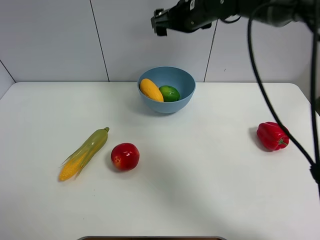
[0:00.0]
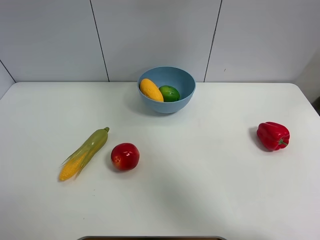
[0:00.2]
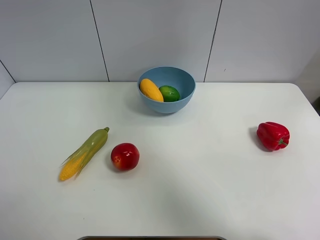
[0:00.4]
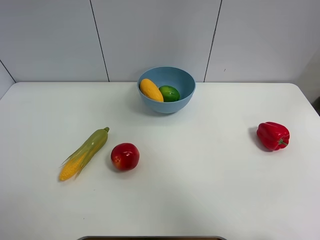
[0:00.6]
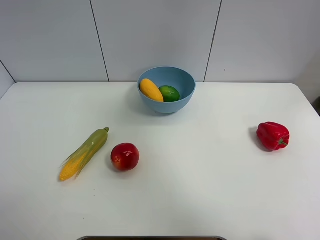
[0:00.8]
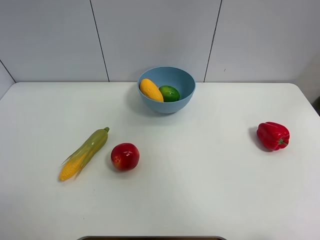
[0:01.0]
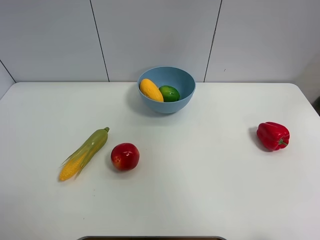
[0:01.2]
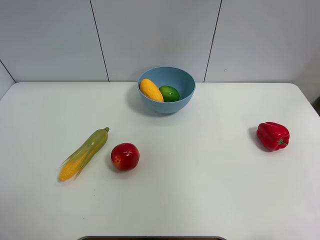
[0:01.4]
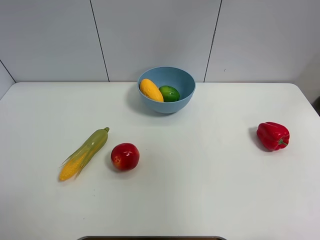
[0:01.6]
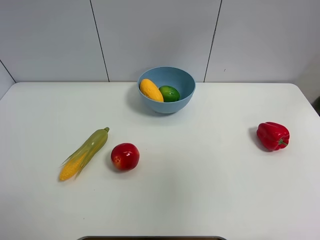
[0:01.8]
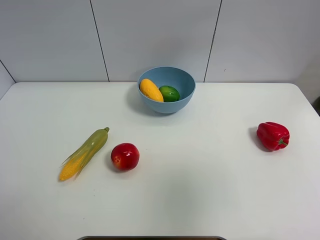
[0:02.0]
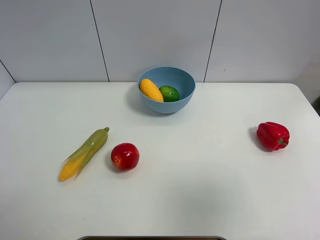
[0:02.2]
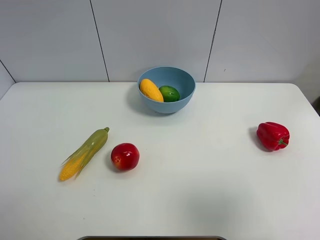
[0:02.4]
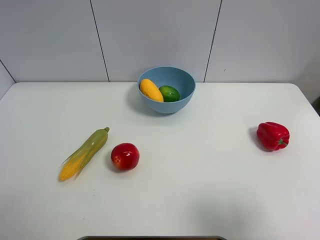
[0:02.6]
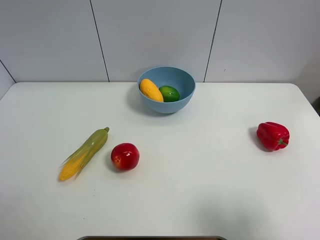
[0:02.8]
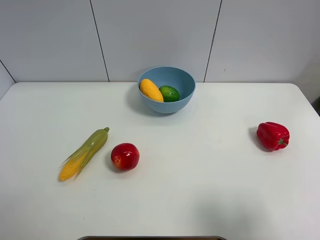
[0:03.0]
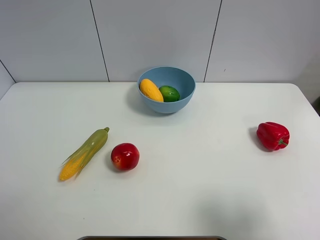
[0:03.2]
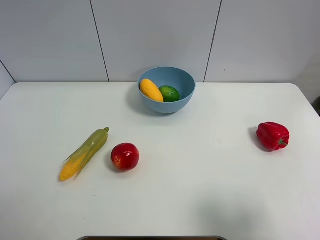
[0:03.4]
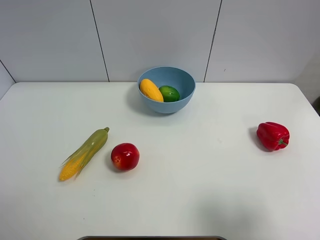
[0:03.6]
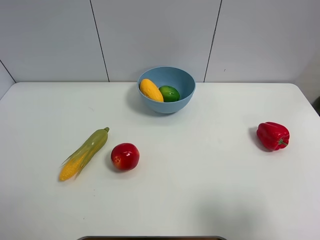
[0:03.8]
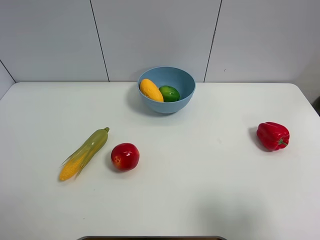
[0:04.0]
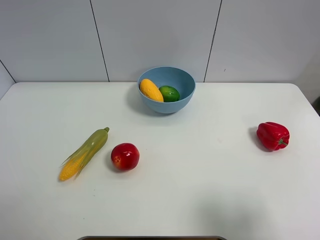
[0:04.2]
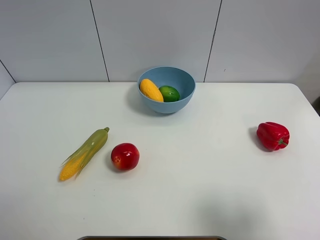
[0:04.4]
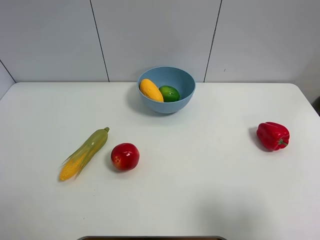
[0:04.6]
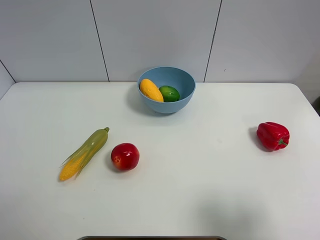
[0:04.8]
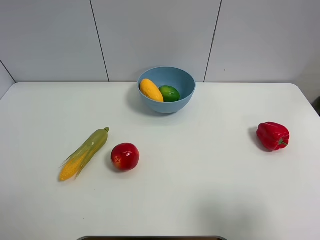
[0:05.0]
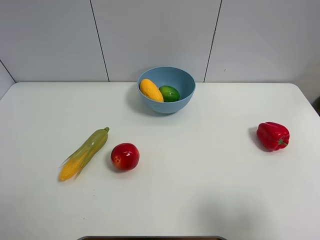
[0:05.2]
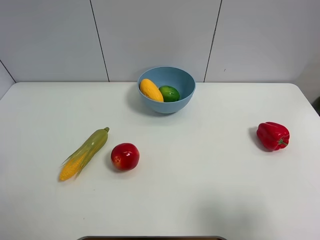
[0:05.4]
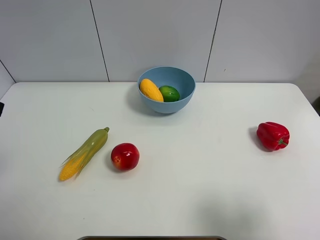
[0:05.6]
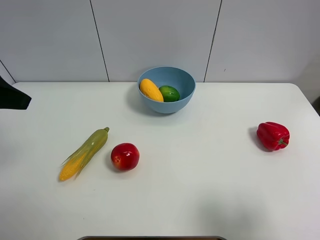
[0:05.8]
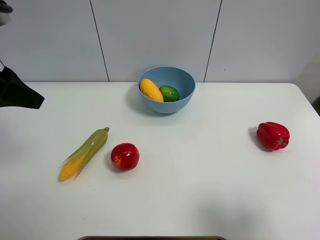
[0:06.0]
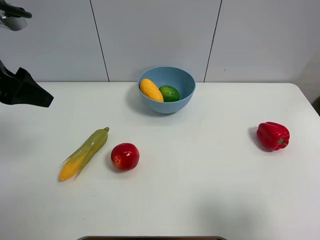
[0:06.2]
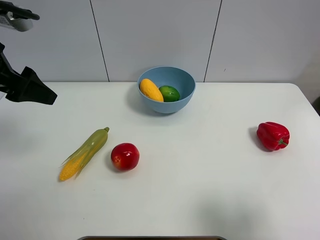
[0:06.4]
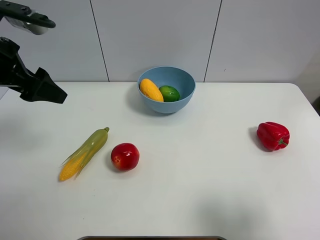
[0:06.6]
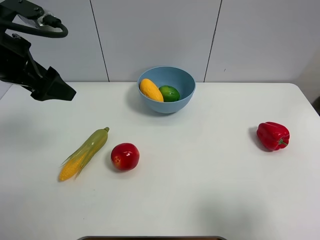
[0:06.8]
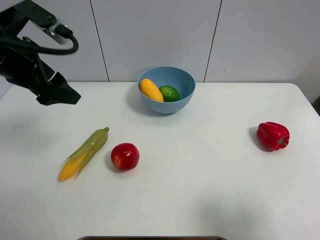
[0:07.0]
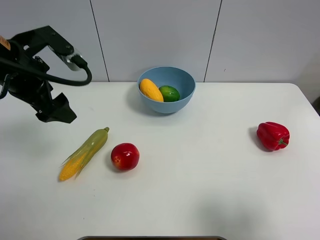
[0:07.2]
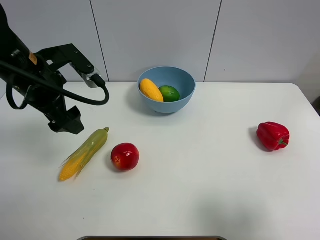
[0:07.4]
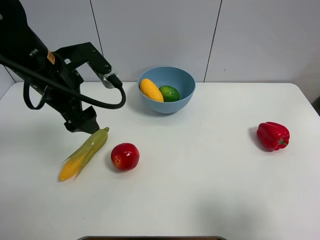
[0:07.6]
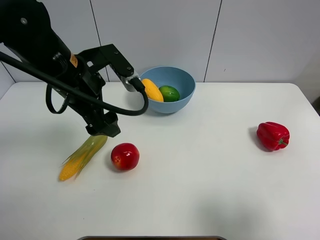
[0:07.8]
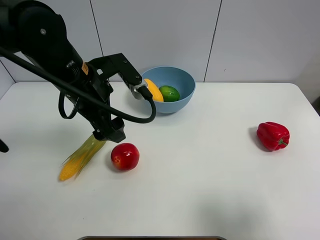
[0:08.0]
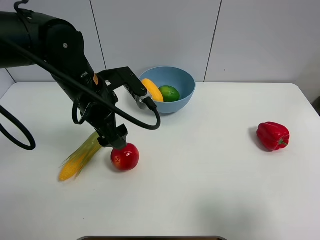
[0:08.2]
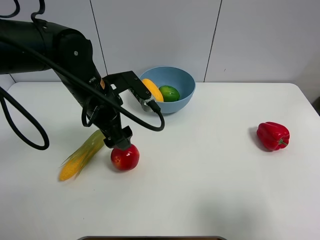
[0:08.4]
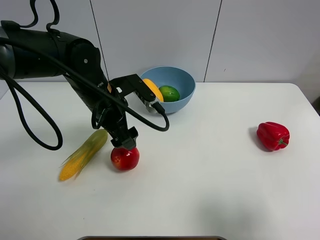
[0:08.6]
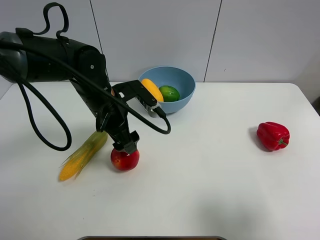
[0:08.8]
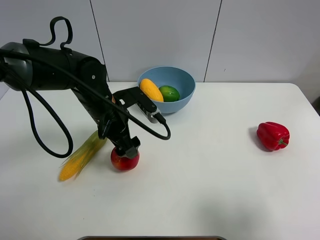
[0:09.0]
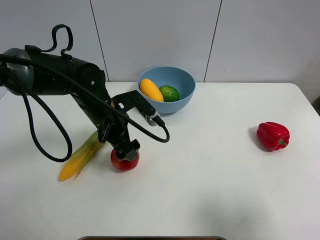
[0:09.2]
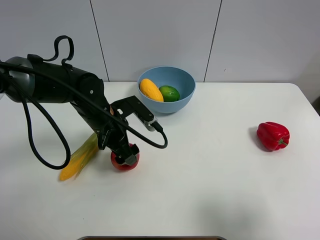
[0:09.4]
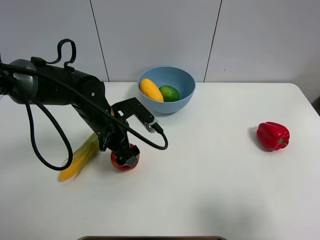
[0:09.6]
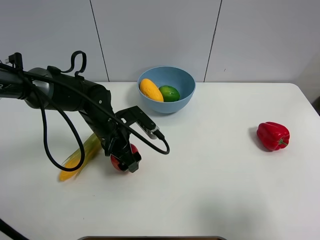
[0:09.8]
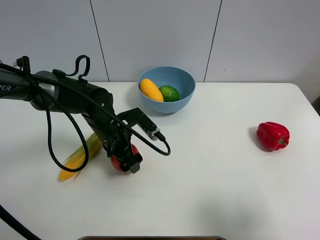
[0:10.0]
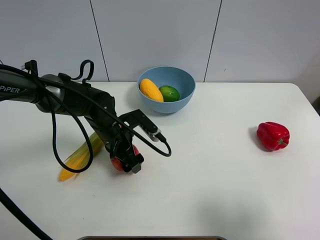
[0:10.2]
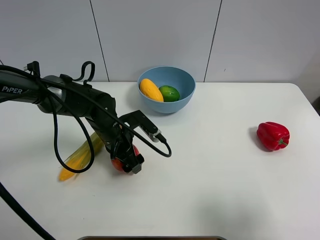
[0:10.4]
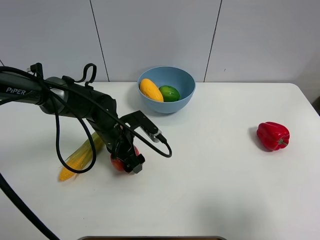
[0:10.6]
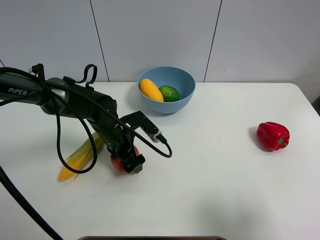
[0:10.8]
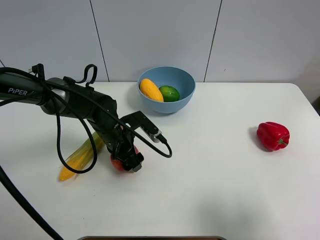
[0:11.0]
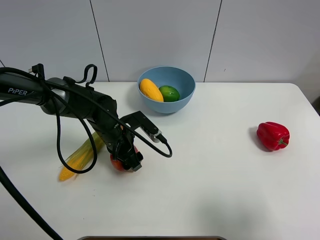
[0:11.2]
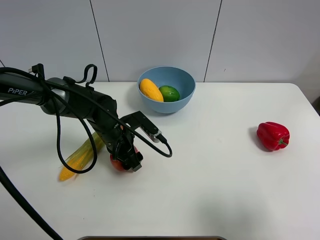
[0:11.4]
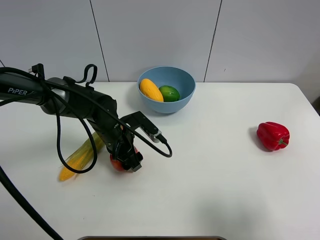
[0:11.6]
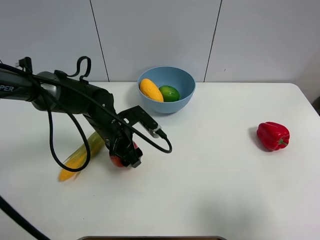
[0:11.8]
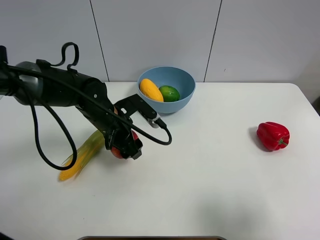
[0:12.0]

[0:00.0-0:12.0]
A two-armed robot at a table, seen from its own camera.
Task of the whole recording: Put the three fruits on the table into a bowl.
Step, 0:00.0 to 0:11.2: Grasp the pomegranate with left gripper.
0:00.0 to 0:01.6: The right gripper is displaced backward, upward and to the right by some 50 cm.
0:01.6 to 0:03.0: The right gripper shifts some 25 cm downward.
0:03.0 to 0:04.4: Both grippers stay about where they are.
0:04.4 to 0:06.0: The left gripper travels forward and upward by approximately 25 cm.
0:06.0 to 0:07.6: The left gripper moves to the right and downward, approximately 15 cm.
0:07.6 to 0:09.0: The left gripper heads downward and to the right, covering roughly 10 cm.
0:09.0 to 0:10.4: The left gripper travels downward by some 5 cm.
0:10.4 to 0:12.0: The left gripper heads upward, covering about 5 cm, and closes.

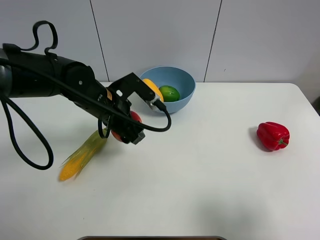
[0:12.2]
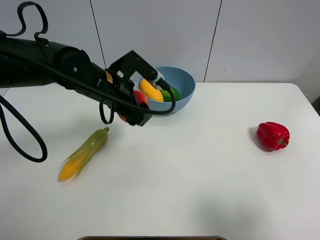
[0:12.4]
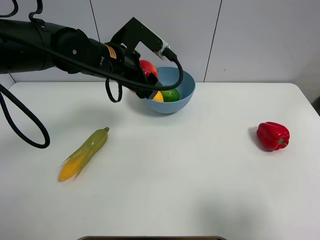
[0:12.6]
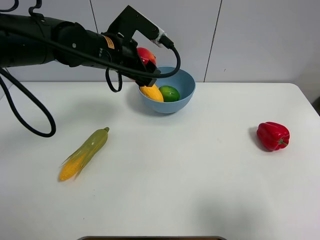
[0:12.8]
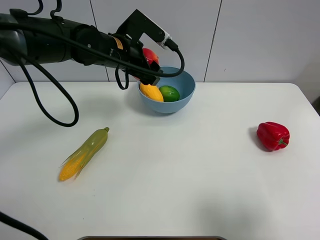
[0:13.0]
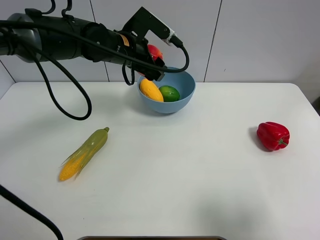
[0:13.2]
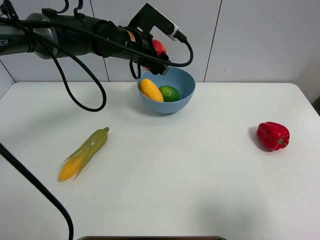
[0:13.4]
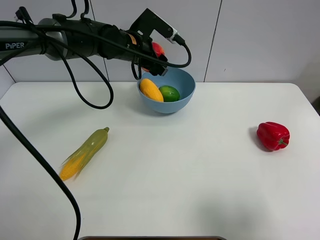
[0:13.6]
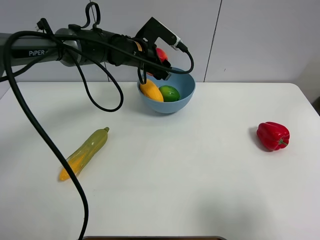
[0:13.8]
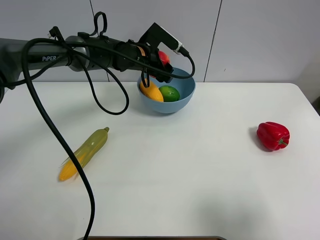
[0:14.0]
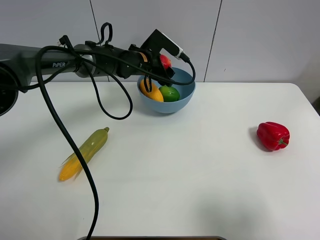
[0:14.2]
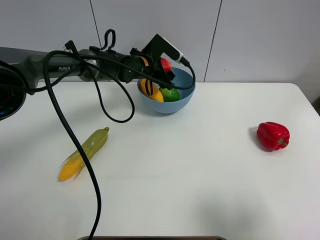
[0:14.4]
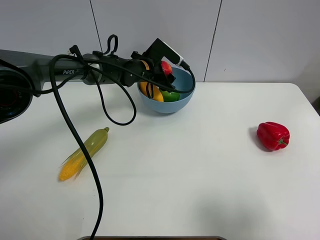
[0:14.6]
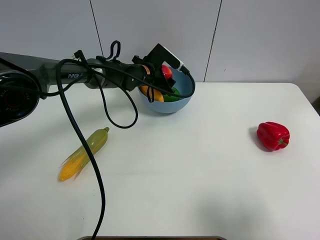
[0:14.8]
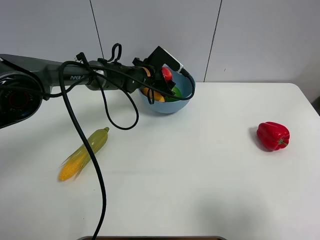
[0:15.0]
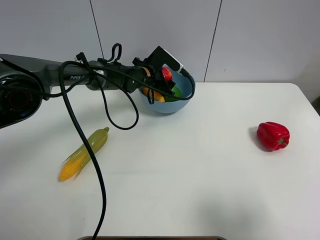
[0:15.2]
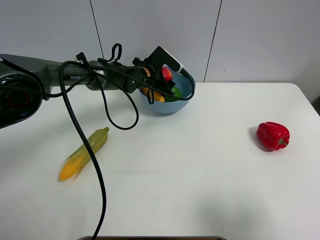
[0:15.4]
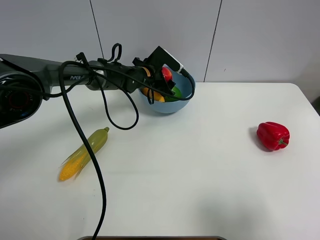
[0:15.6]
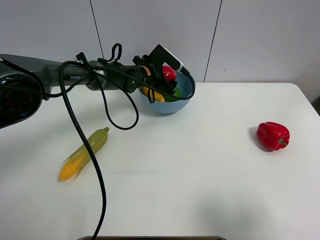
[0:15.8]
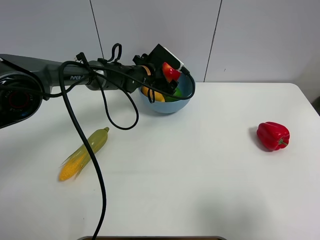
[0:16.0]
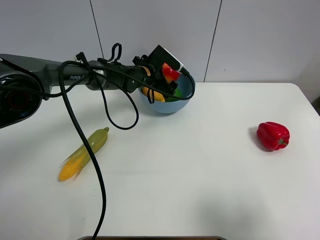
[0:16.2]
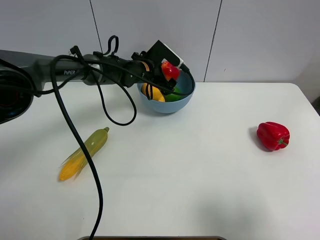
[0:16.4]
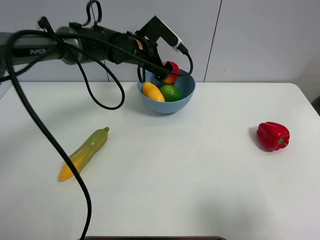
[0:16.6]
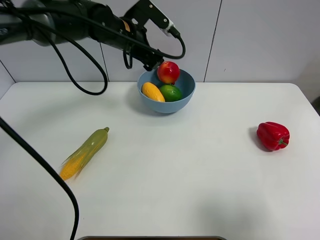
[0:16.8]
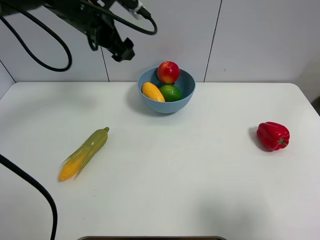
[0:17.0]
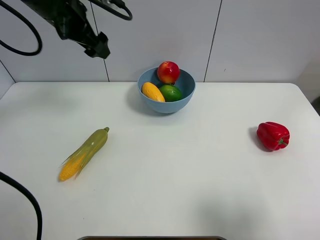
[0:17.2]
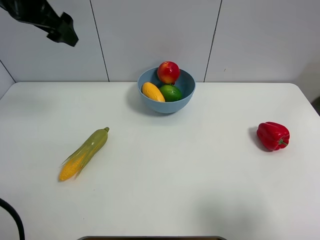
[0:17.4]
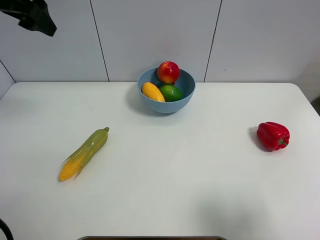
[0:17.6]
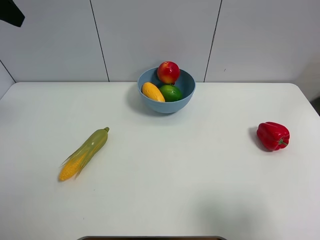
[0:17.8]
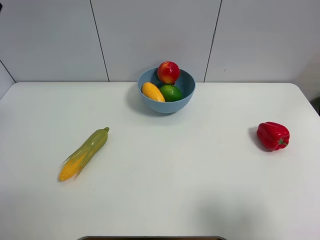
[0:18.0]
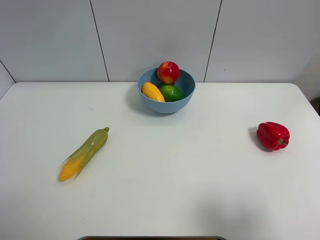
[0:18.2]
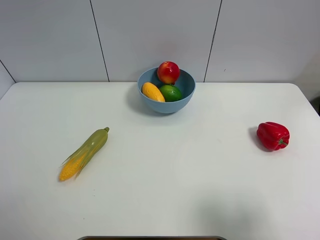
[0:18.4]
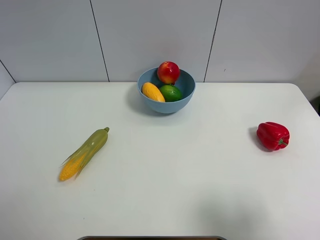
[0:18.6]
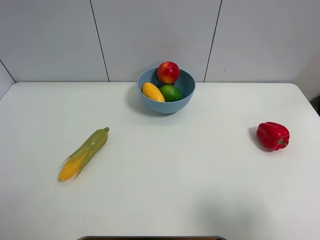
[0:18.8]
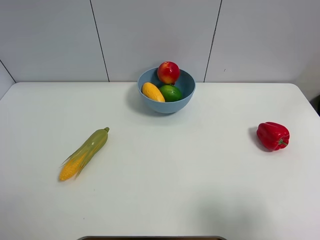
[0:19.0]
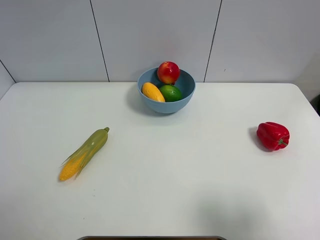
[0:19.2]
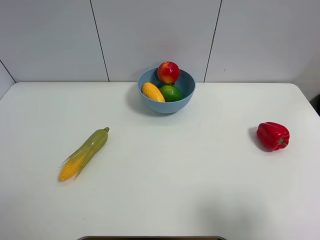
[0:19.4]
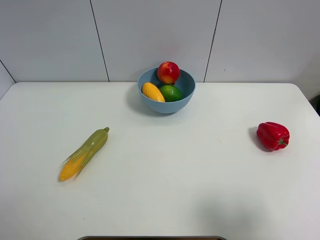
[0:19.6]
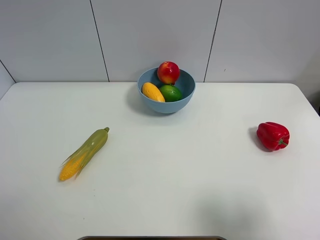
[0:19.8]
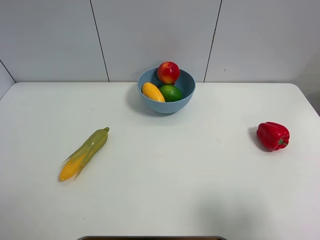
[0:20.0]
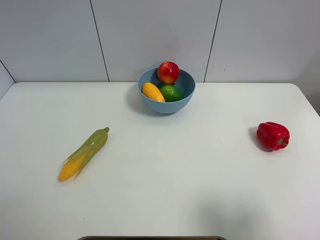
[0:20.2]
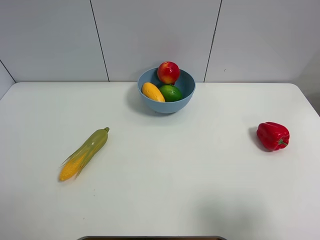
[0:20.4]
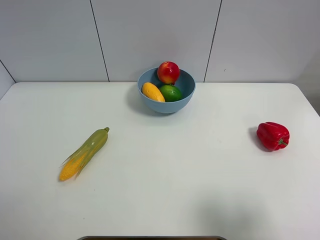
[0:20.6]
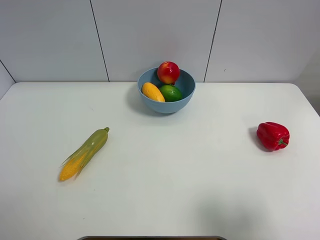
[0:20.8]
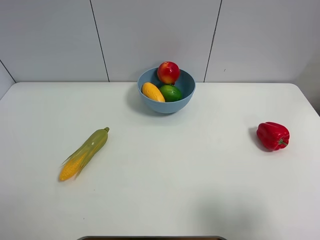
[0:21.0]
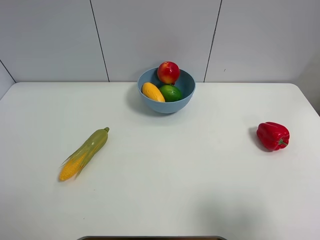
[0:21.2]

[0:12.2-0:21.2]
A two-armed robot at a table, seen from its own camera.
Task of the whole recording: Put the three fruits on the table into a bowl.
Step, 0:12.2 to 0:16.0: Place the pomegranate in the blue bowl with left gripper.
0:12.2 to 0:13.8: The left gripper goes about 15 cm forward.
0:13.8 to 0:15.2: The left gripper goes about 10 cm downward.
0:15.2 to 0:16.6: The left gripper is displaced upward by approximately 10 cm, and opens its fingers.
0:16.6 to 0:18.2: The left gripper travels upward, to the left and backward by about 40 cm.
